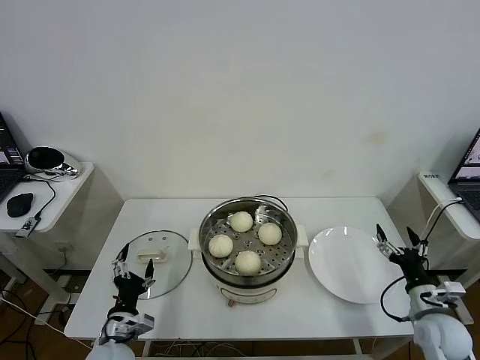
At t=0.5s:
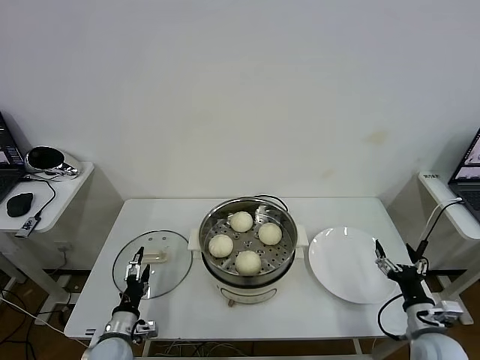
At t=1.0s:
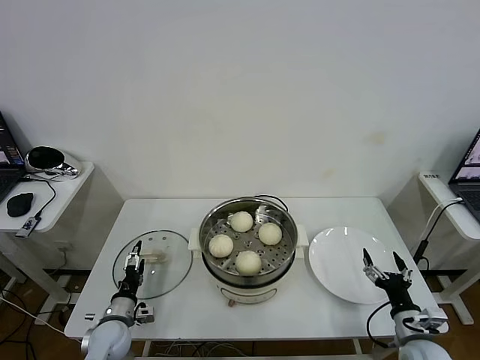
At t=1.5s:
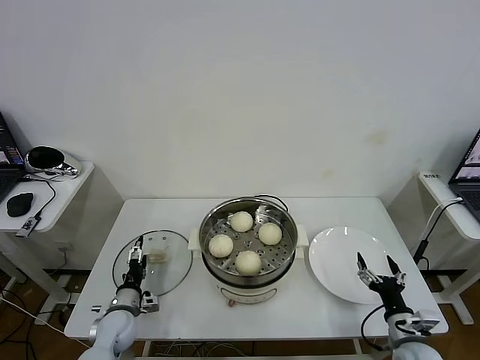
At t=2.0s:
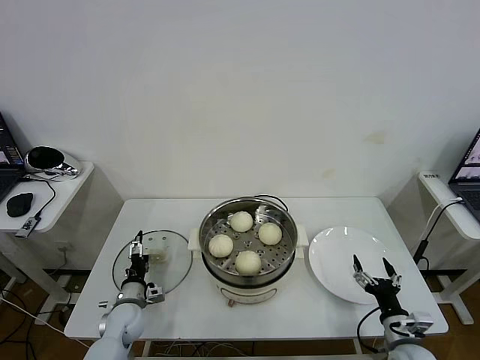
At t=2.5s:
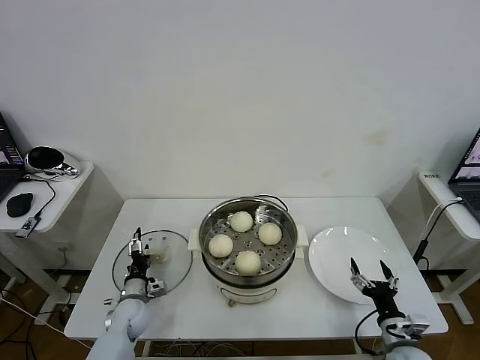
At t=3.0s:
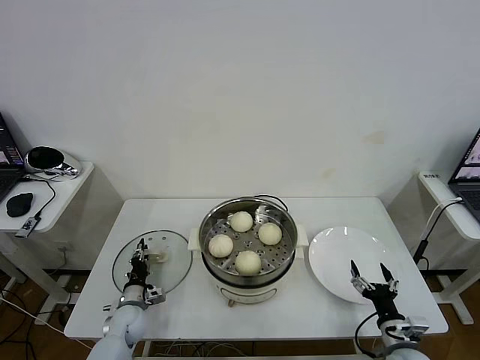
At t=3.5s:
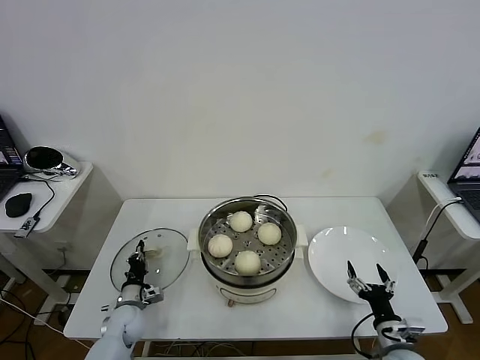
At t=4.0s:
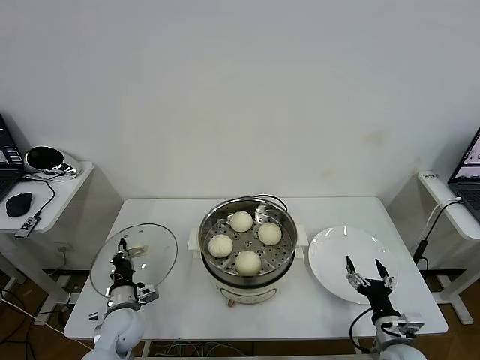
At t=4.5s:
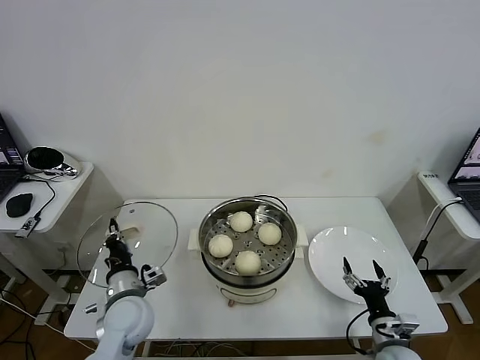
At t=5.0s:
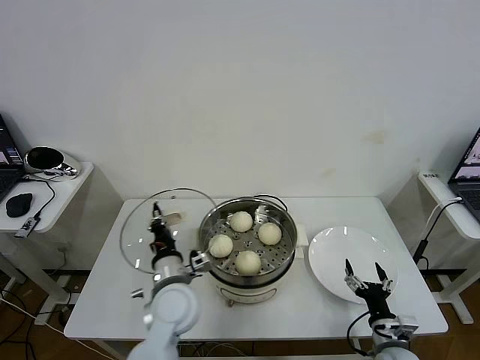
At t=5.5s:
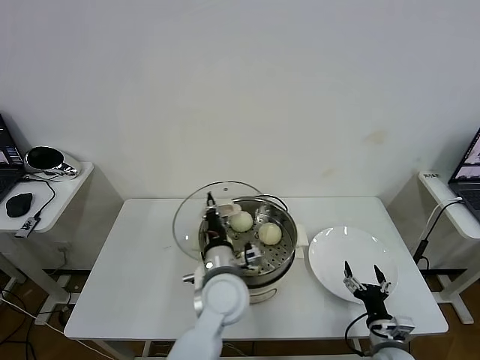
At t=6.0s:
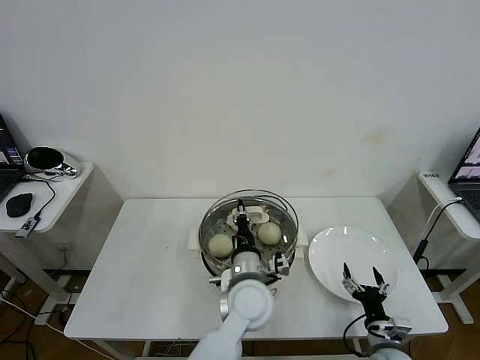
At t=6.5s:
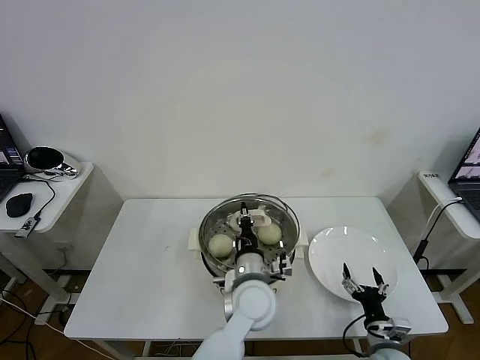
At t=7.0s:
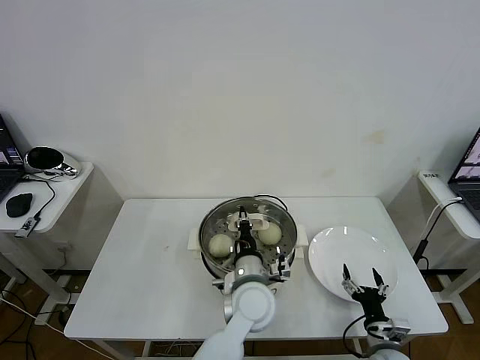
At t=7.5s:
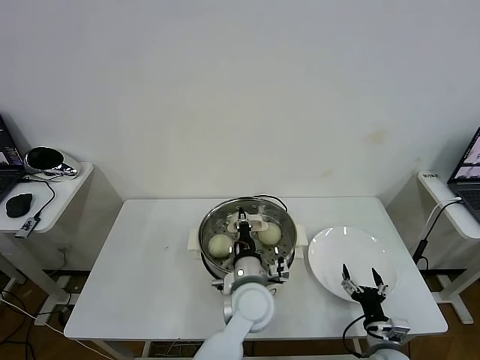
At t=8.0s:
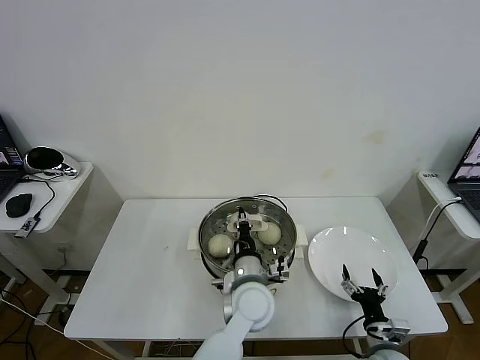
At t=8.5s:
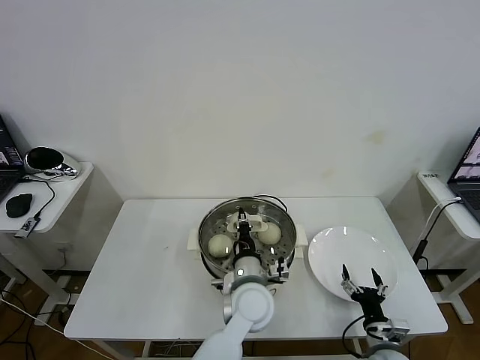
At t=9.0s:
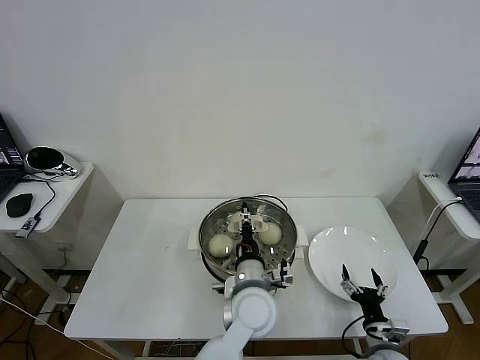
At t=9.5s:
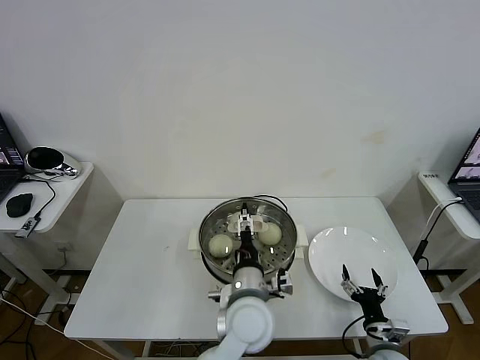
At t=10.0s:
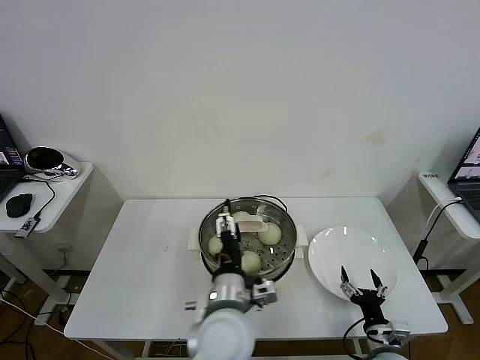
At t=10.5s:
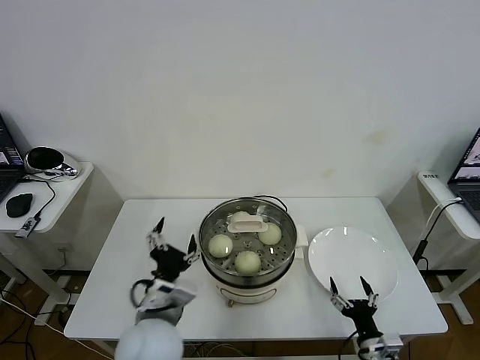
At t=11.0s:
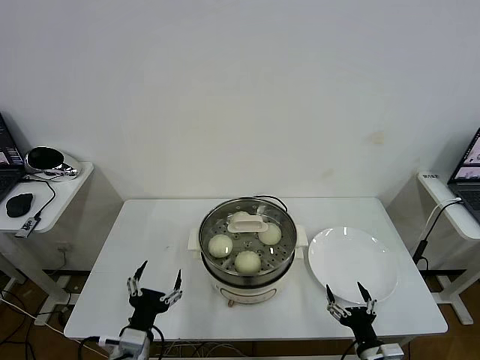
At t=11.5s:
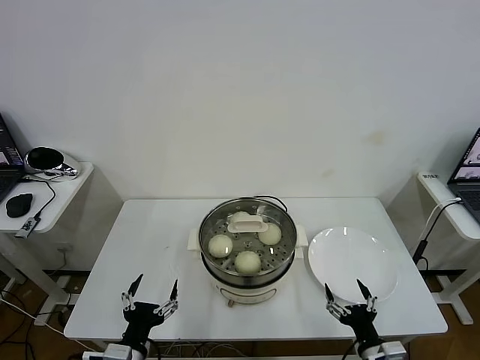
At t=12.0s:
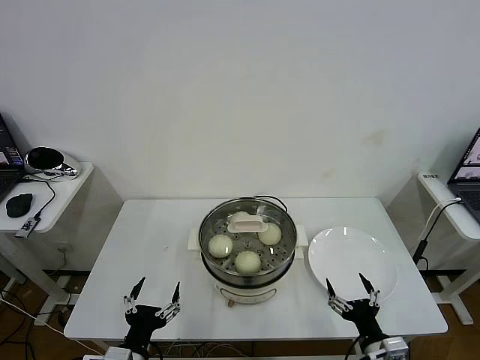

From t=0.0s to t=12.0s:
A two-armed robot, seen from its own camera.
Task of the whole recording: take steamed baozi put them in steamer then cover it.
Step, from t=0.0s to t=3.5s: Grasp the pot lid with left gripper.
Step, from t=4.0s to t=9.5s: Place the pot lid on the steamer with left gripper.
From t=0.0s to t=2.0s: The left gripper goes approximately 15 cm forward and downward, while the right gripper shifts some 10 cm downward and to the left.
From t=2.0s to t=4.0s: The left gripper closes up.
From t=4.0s to t=6.0s: The left gripper is displaced to the right and upward by some 35 cm.
From t=6.0s to t=8.0s: There are only small adjustments of the grippers.
From t=8.0s to t=10.0s: The left gripper travels backward by approximately 5 cm, and opens its fingers.
From t=10.0s to t=12.0s: The left gripper is displaced to the left, backward and downward by roughly 25 cm. Meanwhile the right gripper heads upward and backward, covering approximately 10 cm.
